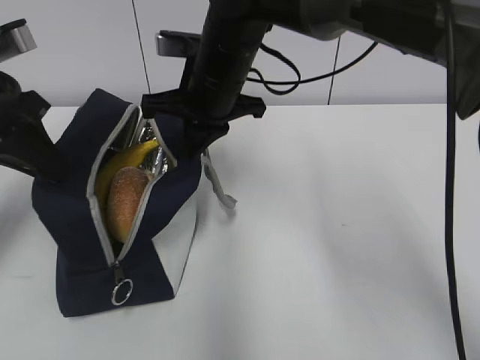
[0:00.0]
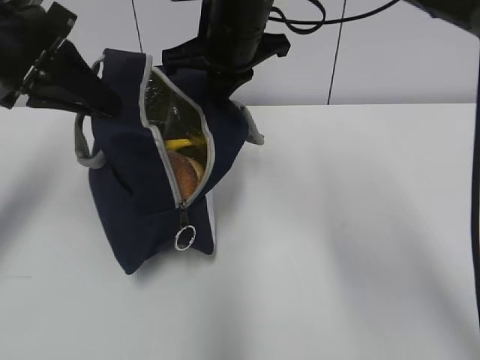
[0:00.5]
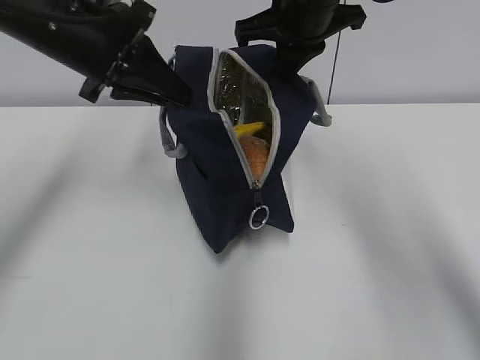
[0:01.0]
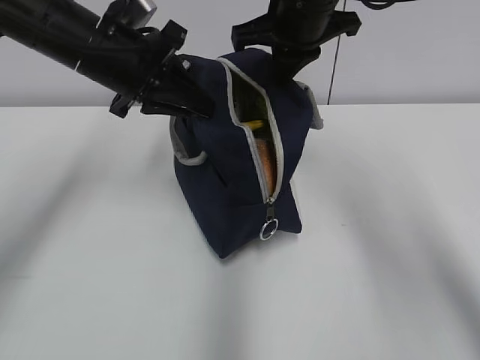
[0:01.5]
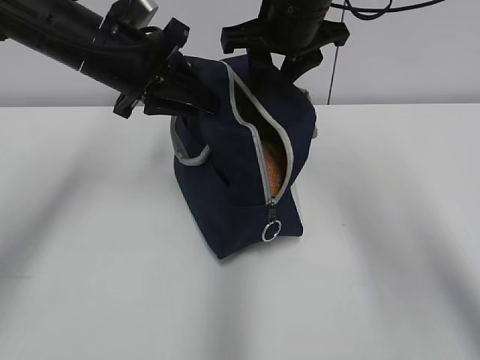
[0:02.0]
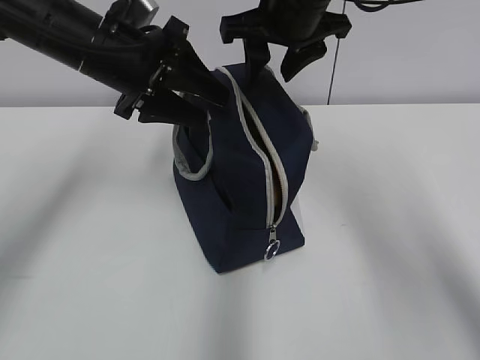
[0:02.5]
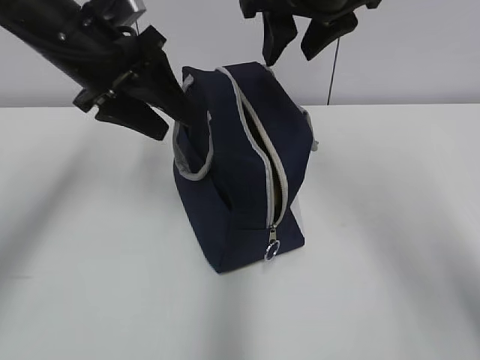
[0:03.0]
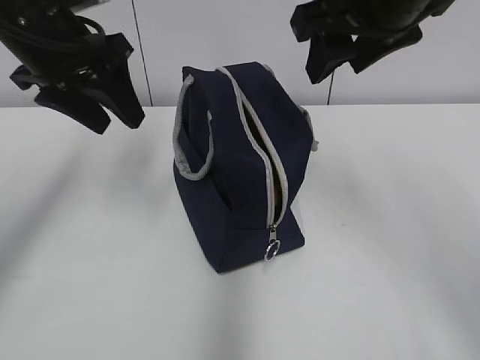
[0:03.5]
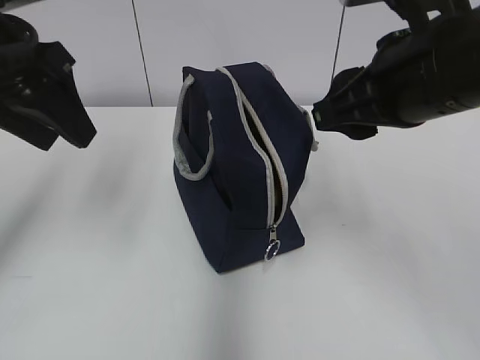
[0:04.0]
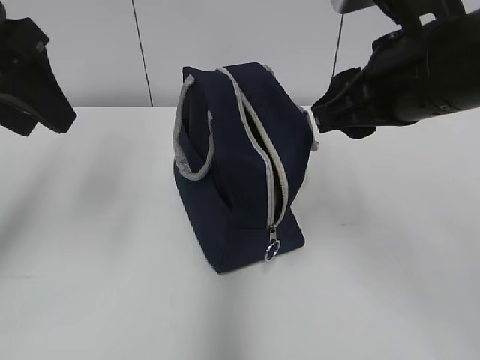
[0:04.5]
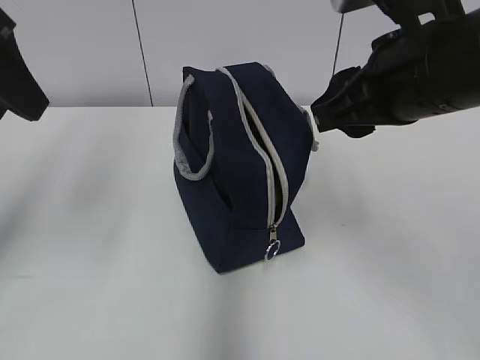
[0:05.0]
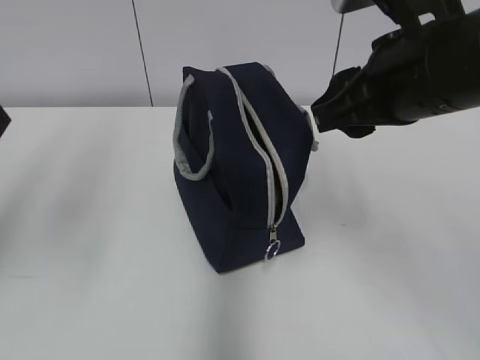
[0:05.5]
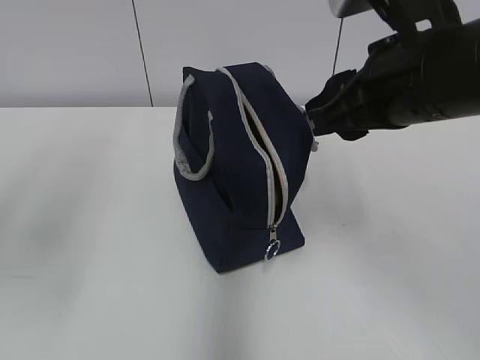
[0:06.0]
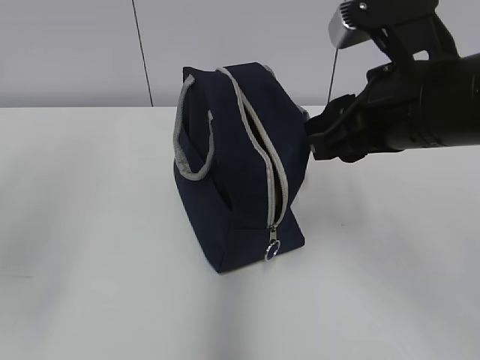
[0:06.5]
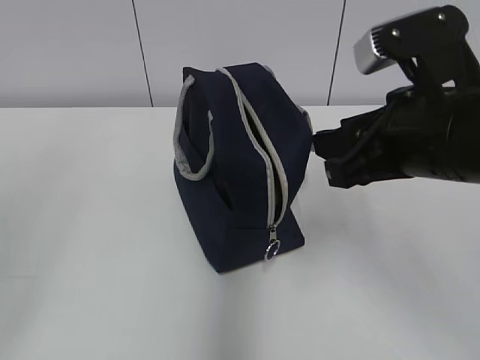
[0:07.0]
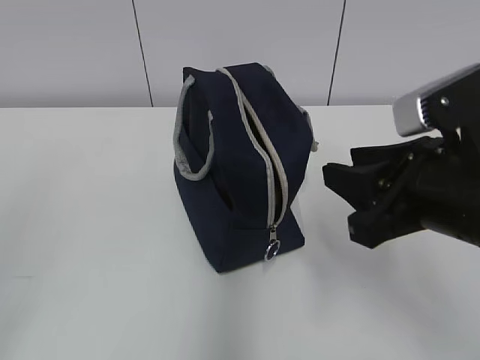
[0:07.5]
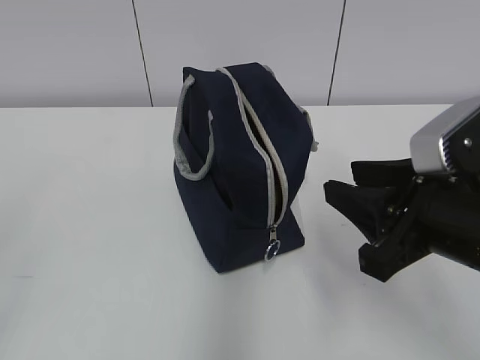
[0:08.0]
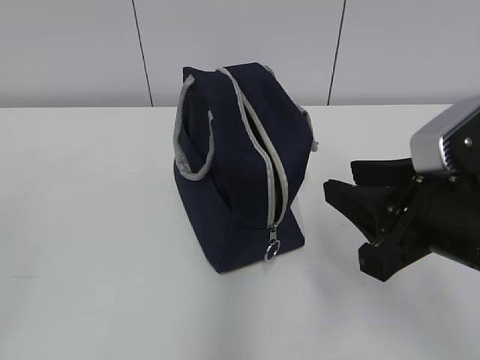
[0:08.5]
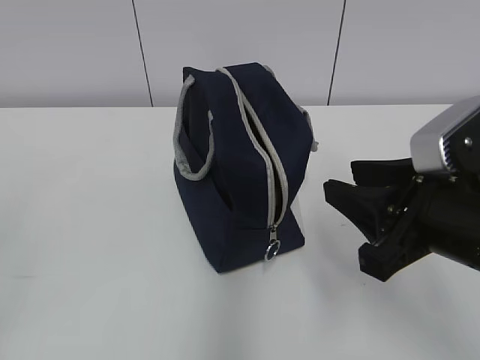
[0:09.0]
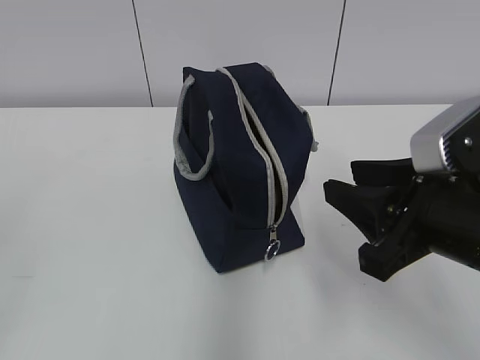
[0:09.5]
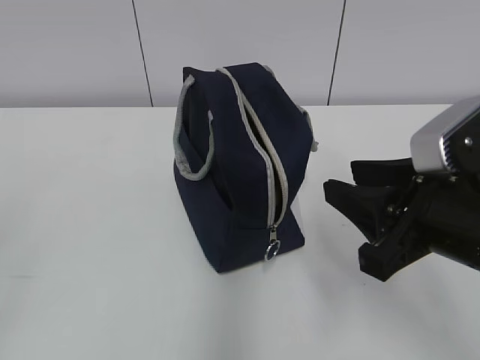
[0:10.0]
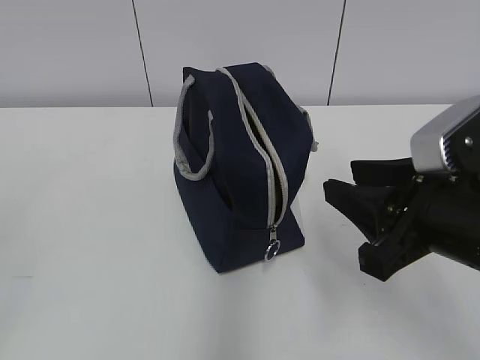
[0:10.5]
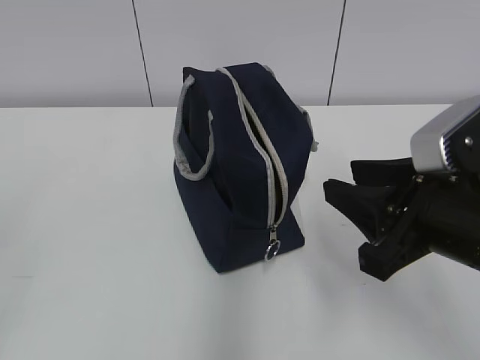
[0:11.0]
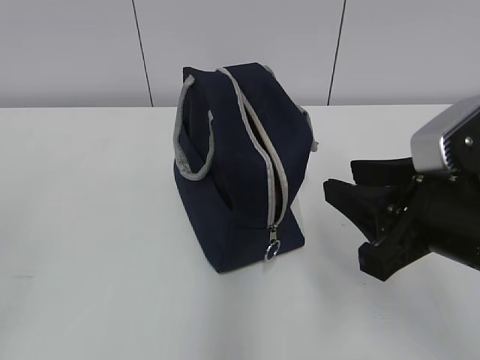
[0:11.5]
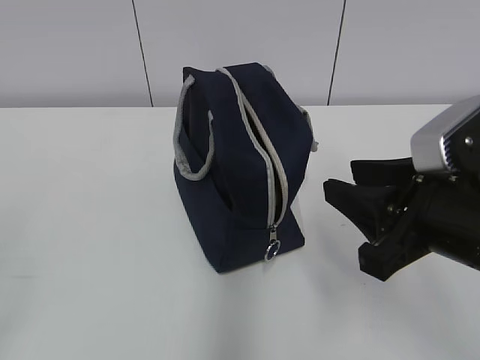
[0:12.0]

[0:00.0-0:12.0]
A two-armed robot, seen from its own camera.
Step, 0:00.0 to 0:02.0: Move the lunch bag to the right.
0:00.0 to 0:02.0: The left gripper moves to the right and forward, about 15 cm. Meanwhile the right gripper shifts roughly 10 cm to the right and upward, and opens up.
0:02.0 to 0:04.0: The left gripper shifts roughly 10 cm backward, to the left and upward, and opens its fingers; the right gripper shifts some 15 cm backward.
0:04.0 to 0:06.0: The left gripper heads backward, covering about 10 cm.
0:06.0 to 0:08.0: The right gripper moves downward and backward, some 10 cm; the left gripper shifts approximately 20 cm backward.
0:08.0 to 0:10.0: The two grippers keep their place.

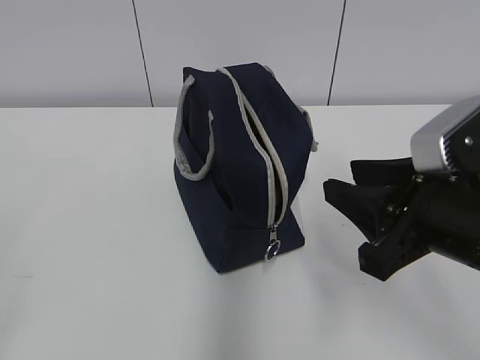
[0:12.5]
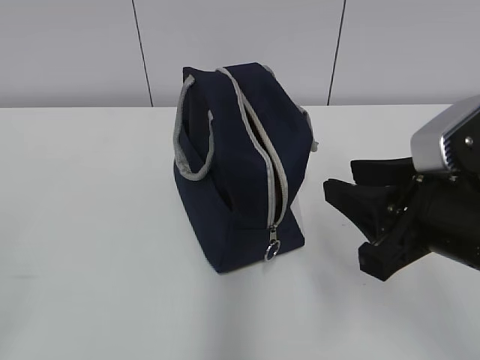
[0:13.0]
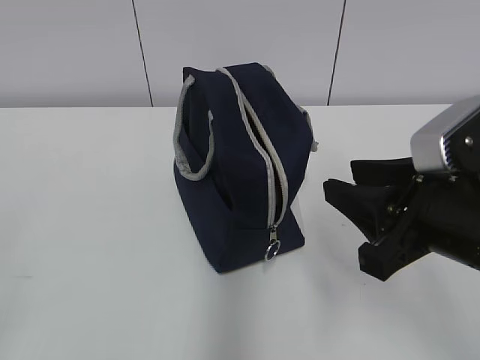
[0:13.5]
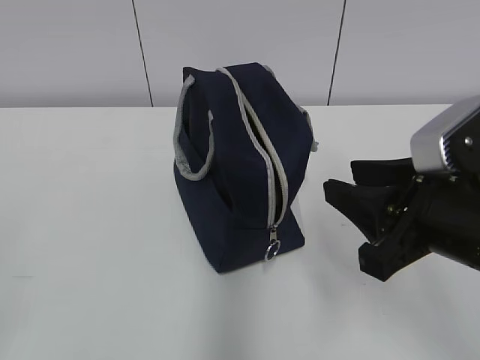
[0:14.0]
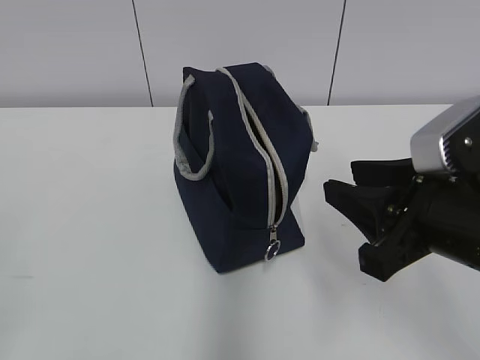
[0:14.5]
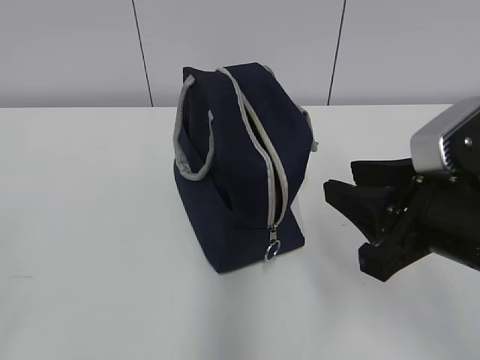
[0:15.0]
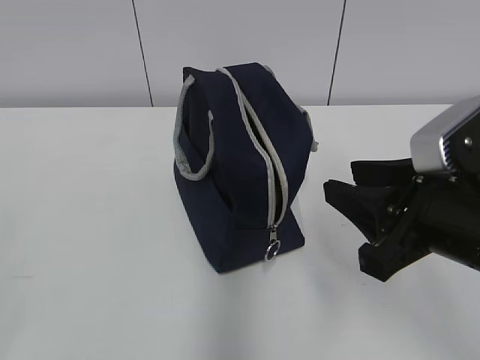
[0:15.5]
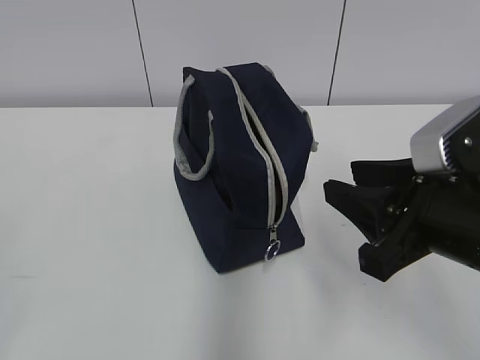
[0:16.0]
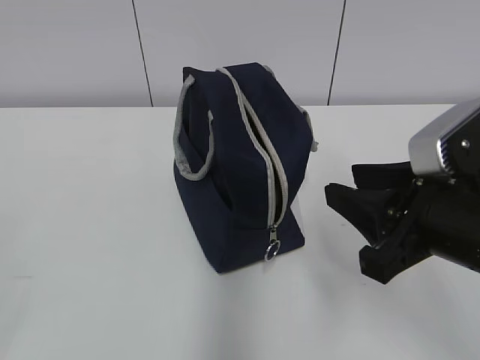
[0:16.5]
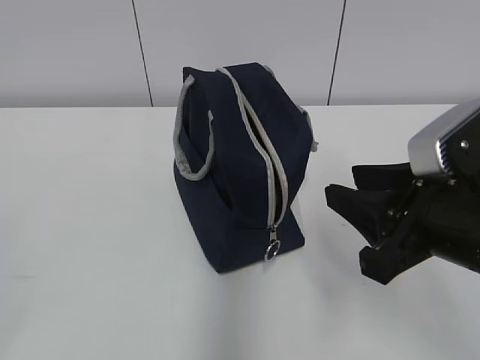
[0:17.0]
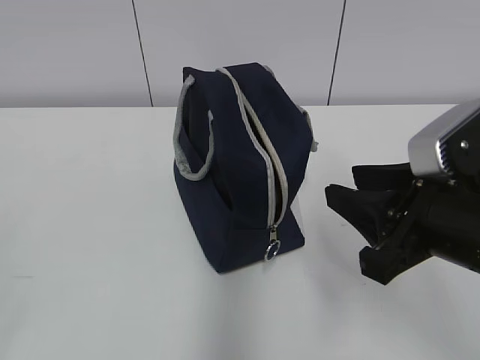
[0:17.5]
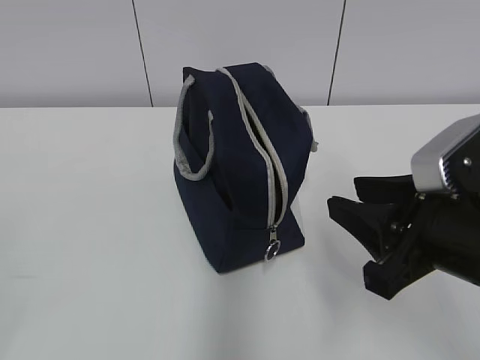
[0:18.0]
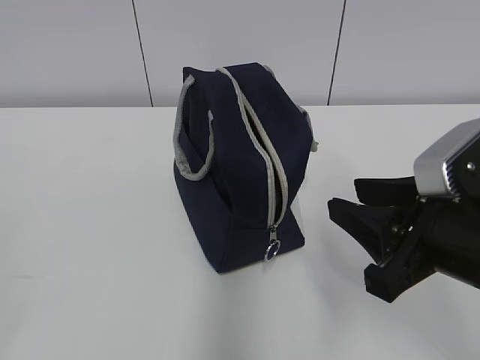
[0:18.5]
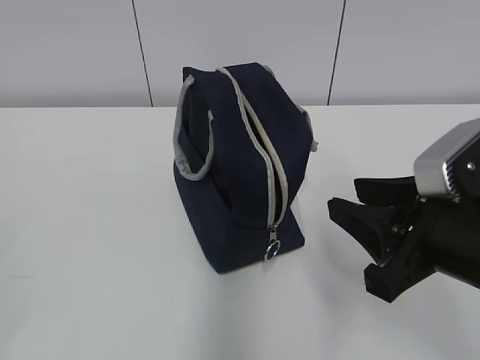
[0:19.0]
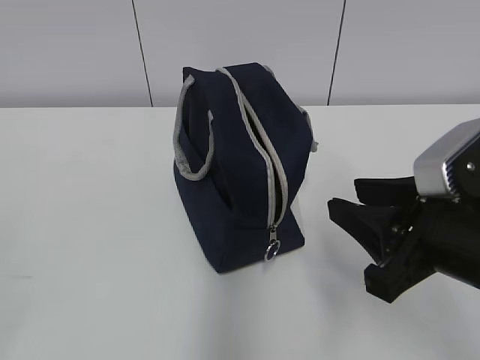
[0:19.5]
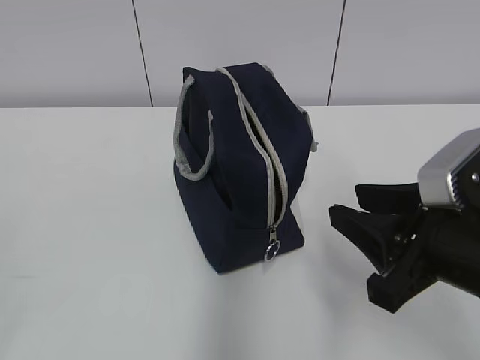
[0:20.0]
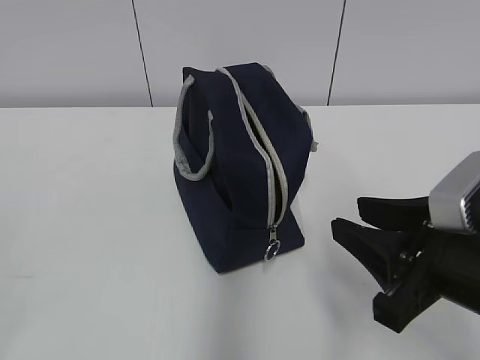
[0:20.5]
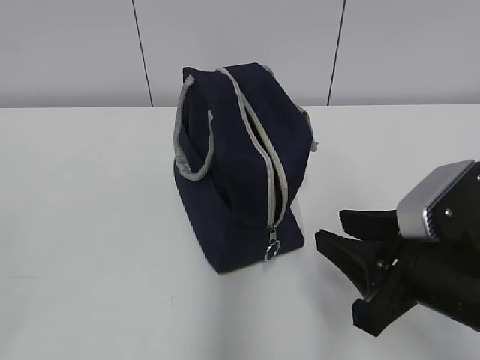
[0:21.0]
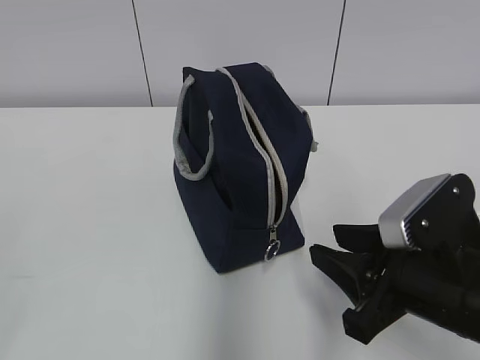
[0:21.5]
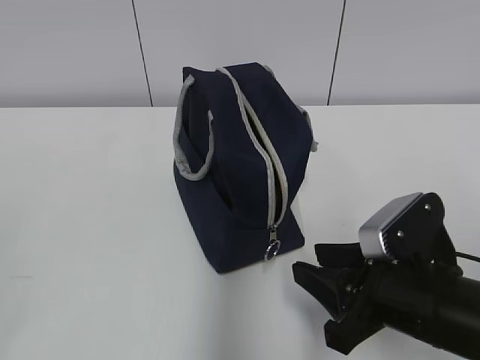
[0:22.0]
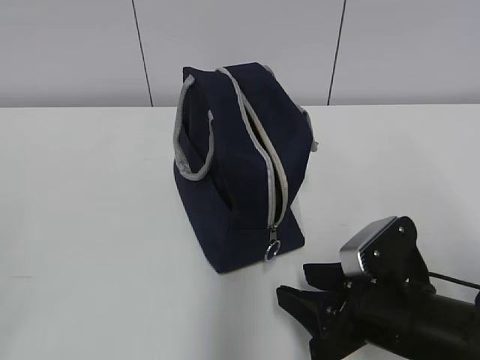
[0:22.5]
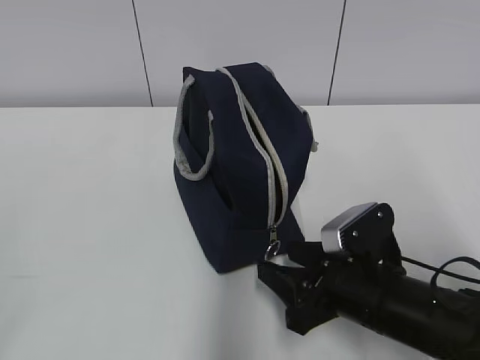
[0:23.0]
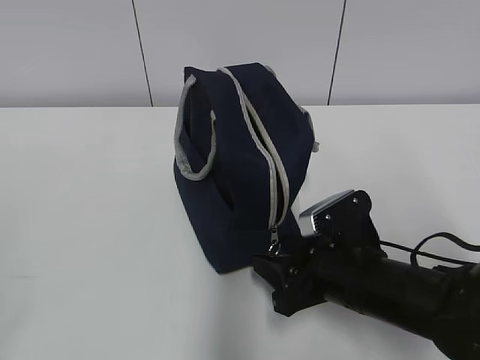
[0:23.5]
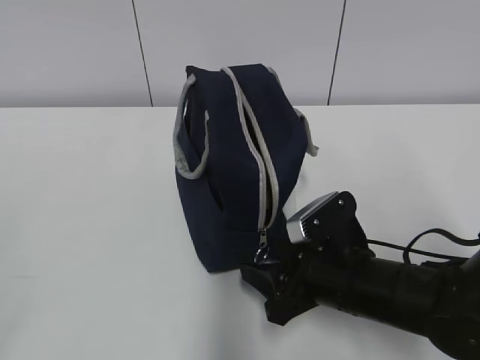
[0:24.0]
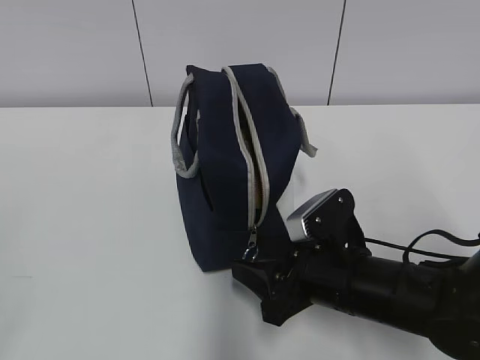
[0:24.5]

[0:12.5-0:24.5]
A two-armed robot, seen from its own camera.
0:12.5 to 0:14.5: Neither gripper changes place.
0:14.5 to 0:16.5: The grippers stay close to where they were, moving slightly.
0:16.5 to 0:18.5: Neither gripper changes place.
0:18.5 to 0:20.5: The grippers make only small movements.
0:20.5 to 0:22.5: The right gripper heads downward, covering approximately 10 cm.
0:22.5 to 0:24.5: The right gripper changes place by some 5 cm.

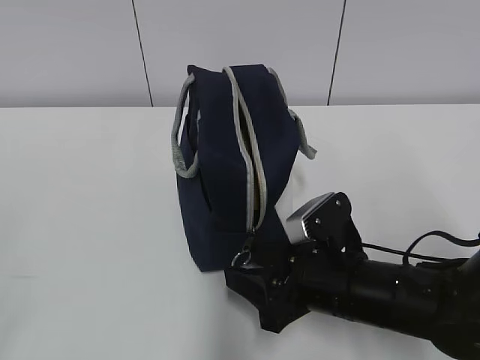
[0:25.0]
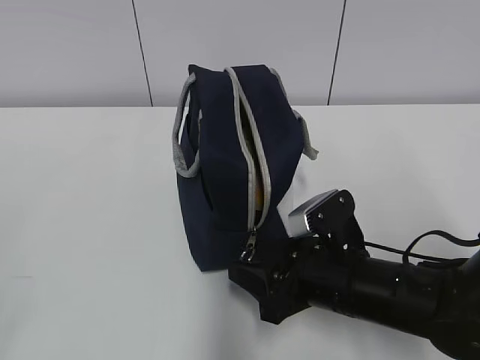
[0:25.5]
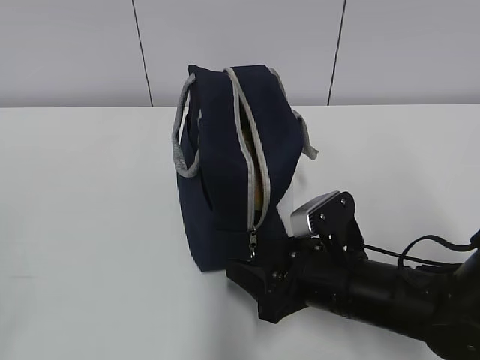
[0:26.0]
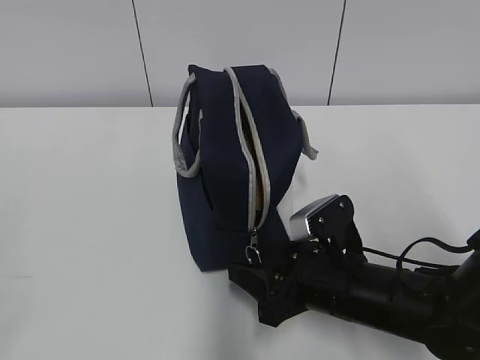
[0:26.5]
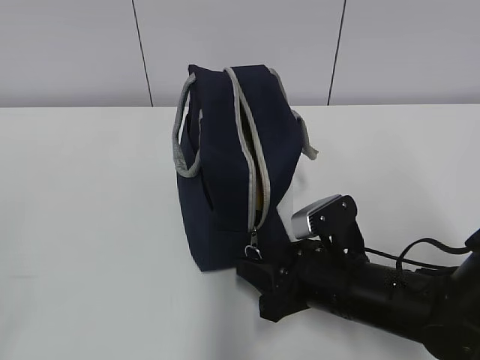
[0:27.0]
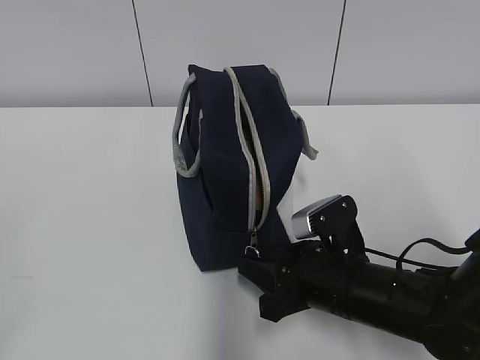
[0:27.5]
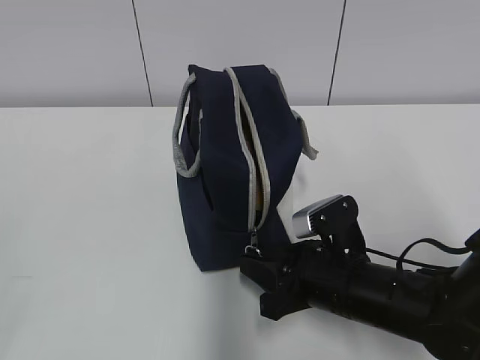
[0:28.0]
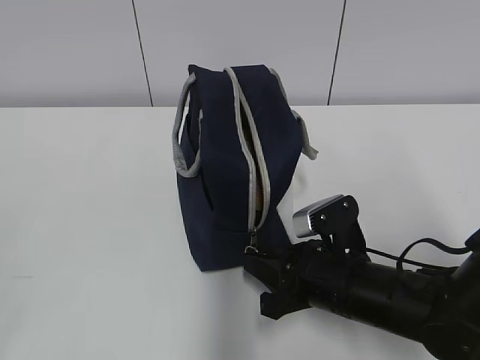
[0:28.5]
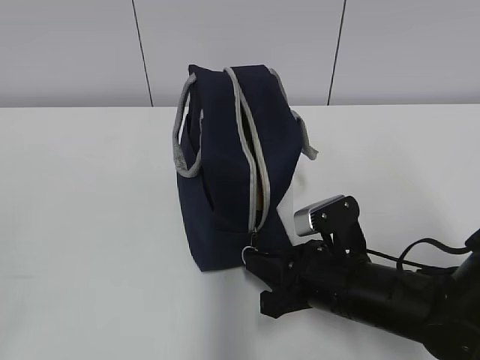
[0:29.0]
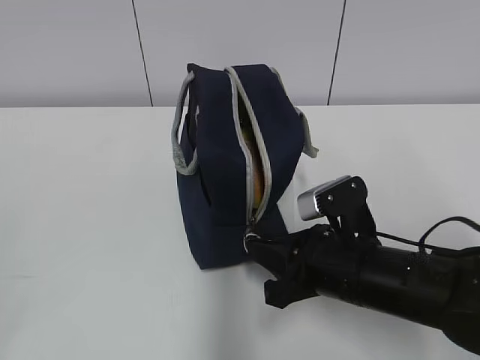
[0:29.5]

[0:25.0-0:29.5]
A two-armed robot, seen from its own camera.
0:25.0 to 0:27.0: There are only small adjustments of the grippers.
0:27.0 to 0:29.5: The right gripper closes.
